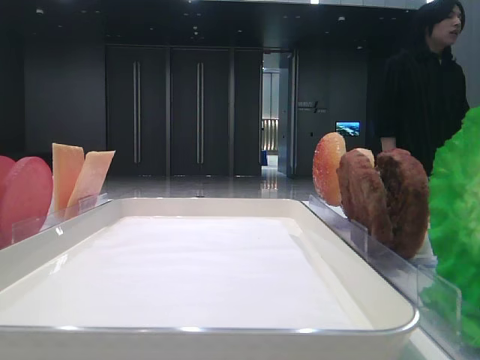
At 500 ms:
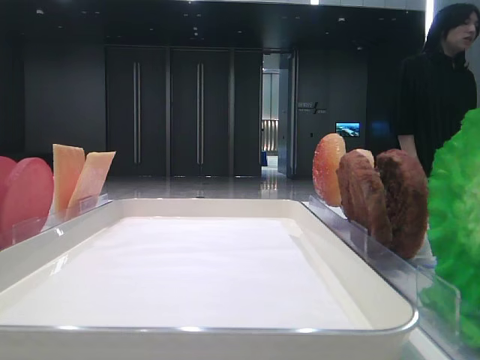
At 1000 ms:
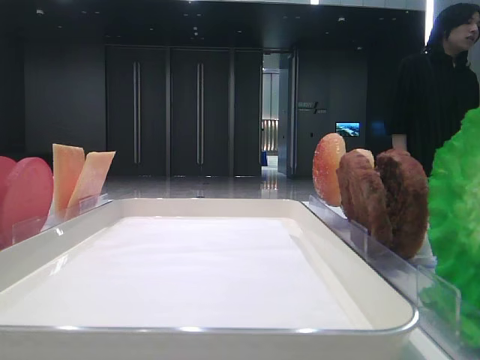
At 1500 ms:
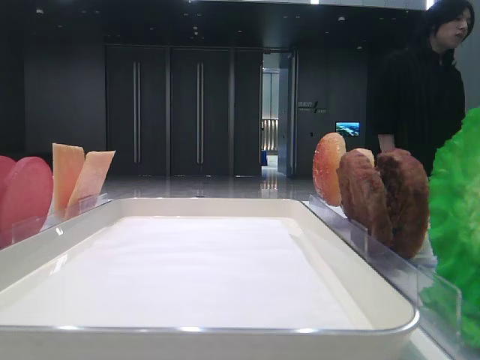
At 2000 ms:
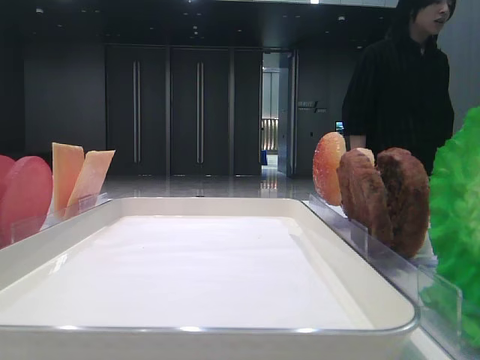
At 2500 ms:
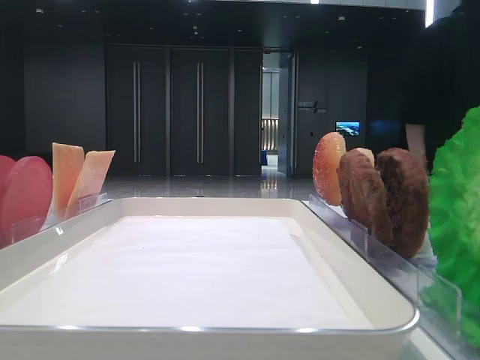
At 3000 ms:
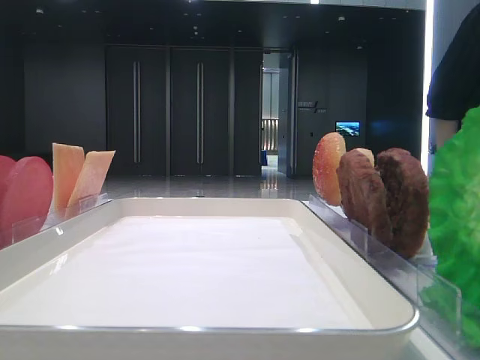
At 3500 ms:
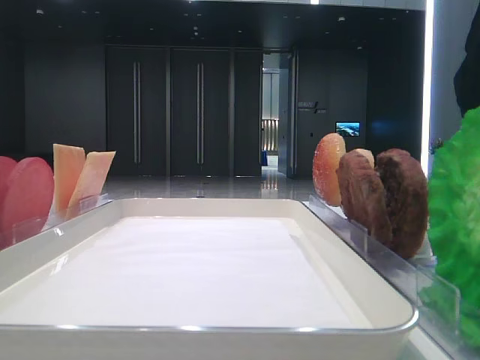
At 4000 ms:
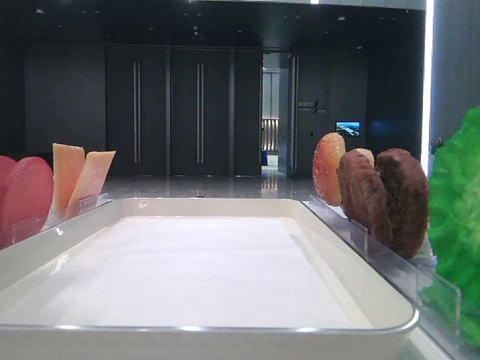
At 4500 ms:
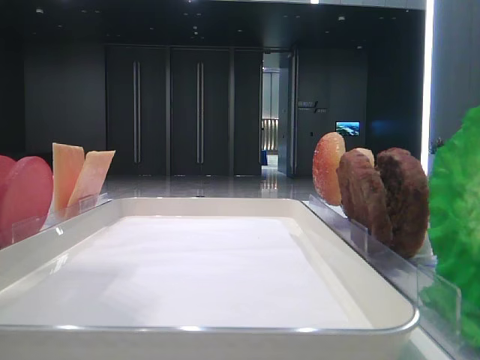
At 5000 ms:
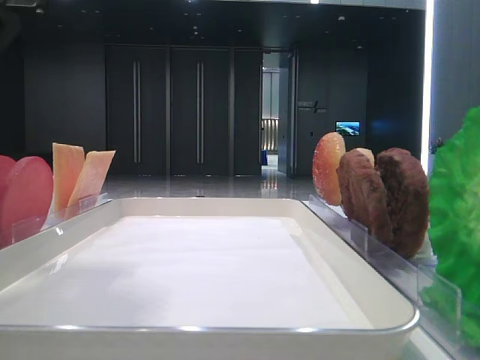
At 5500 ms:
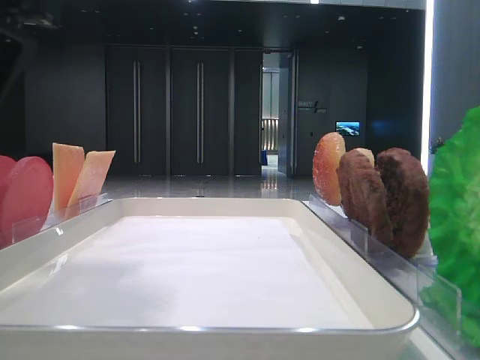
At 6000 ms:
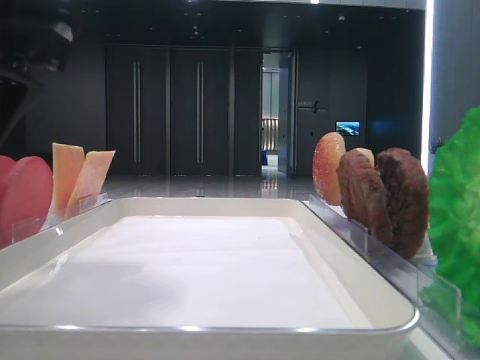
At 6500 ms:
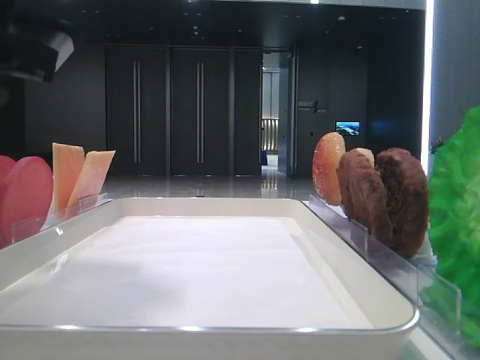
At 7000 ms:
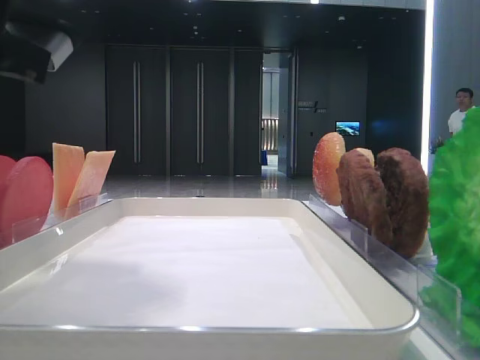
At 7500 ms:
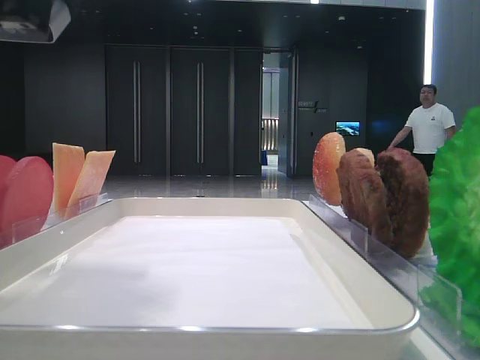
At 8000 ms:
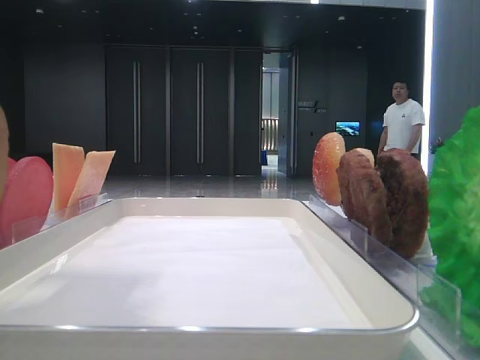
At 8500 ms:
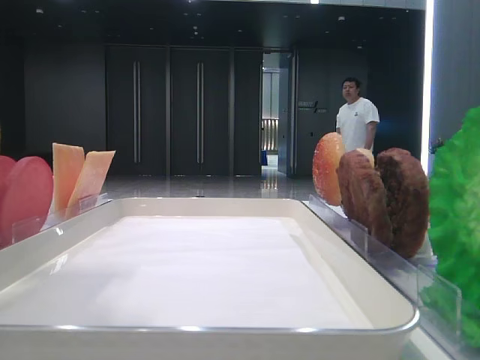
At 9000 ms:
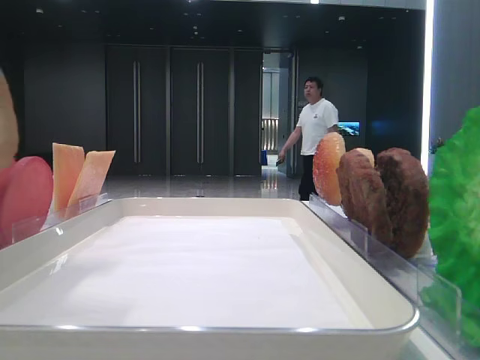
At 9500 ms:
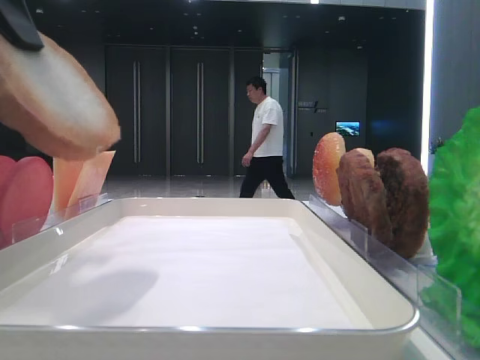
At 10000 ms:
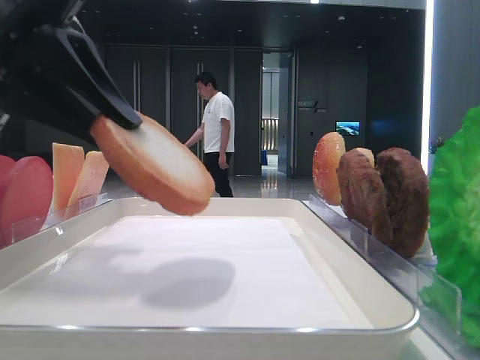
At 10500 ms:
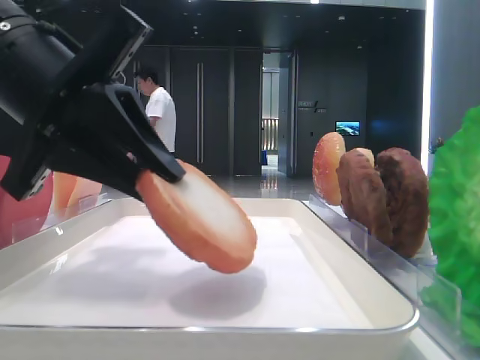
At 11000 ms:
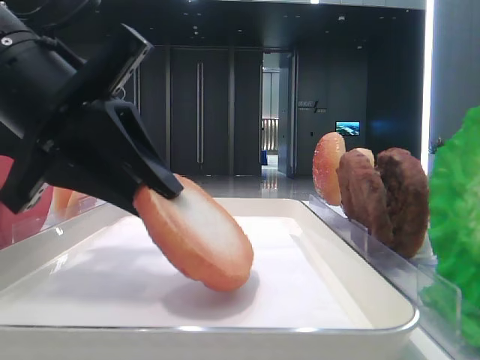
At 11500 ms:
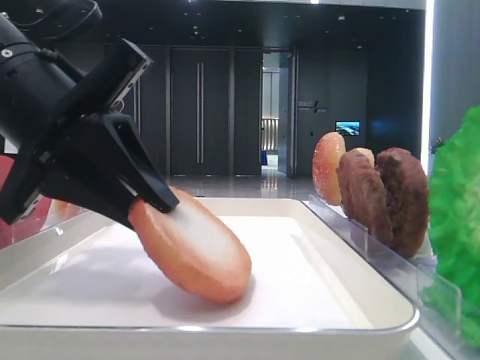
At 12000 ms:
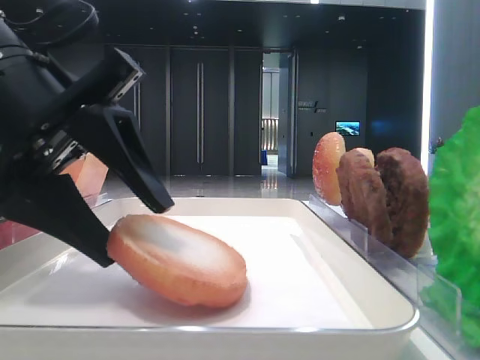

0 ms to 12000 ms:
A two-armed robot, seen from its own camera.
Step, 0 ms to 4000 ms: Pick up the bottom bread slice with the left hand.
2000 ms to 4000 ms: The left gripper goes some 10 cm to the right.
4000 ms to 6000 ms: The left gripper goes roughly 10 cm downward and to the right.
6000 ms to 8000 ms: The left gripper moves roughly 5 cm, and closes.
8000 ms to 10000 ms: The left gripper is displaced forward and downward by about 10 cm.
10000 ms to 12000 ms: The left gripper heads downward, covering approximately 5 cm, and opens.

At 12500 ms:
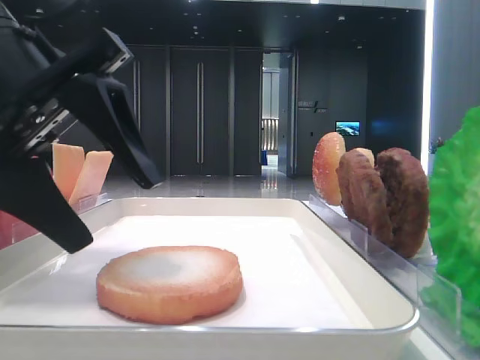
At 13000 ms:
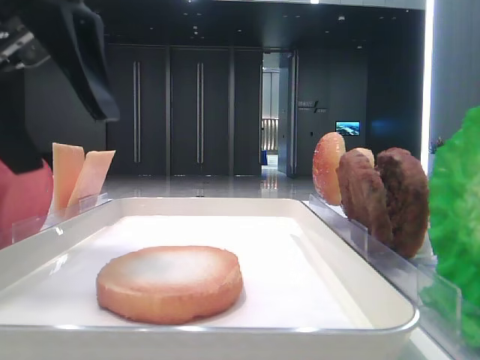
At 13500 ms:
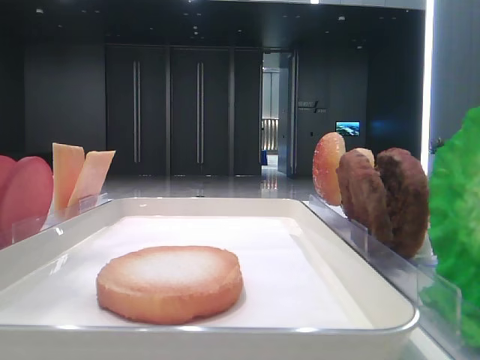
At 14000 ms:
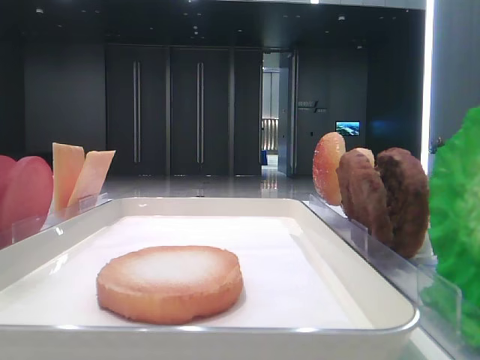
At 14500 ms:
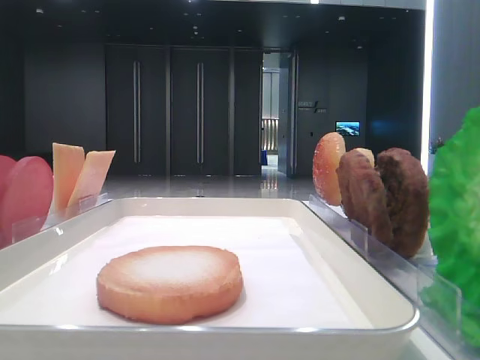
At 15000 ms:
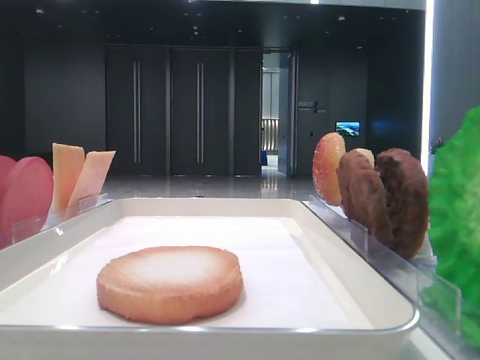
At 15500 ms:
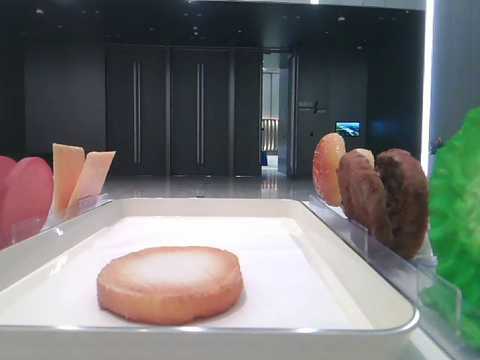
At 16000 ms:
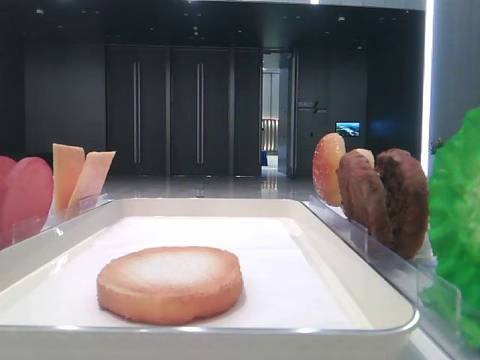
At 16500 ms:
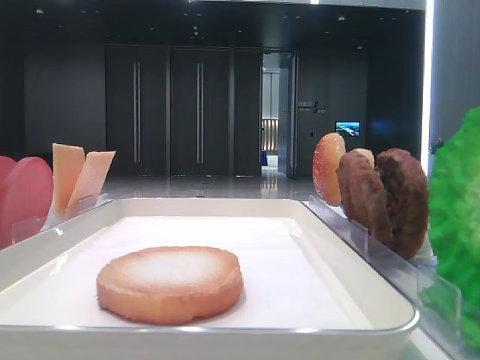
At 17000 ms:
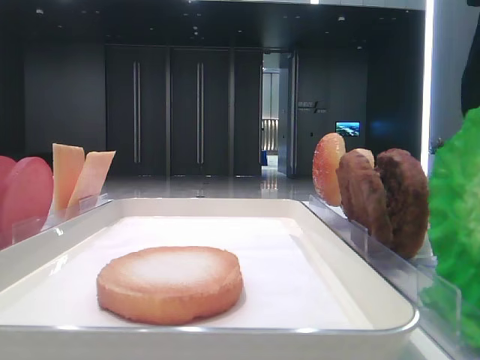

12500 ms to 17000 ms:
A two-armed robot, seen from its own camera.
12500 ms to 14500 ms: The left gripper moves to the left and upward, roughly 20 cm.

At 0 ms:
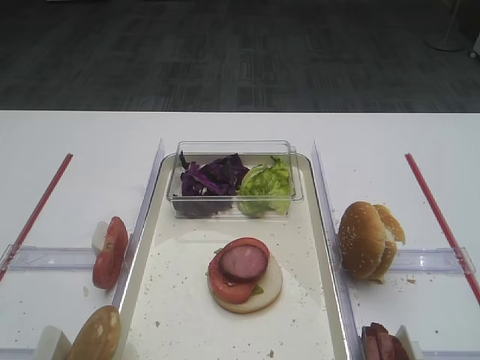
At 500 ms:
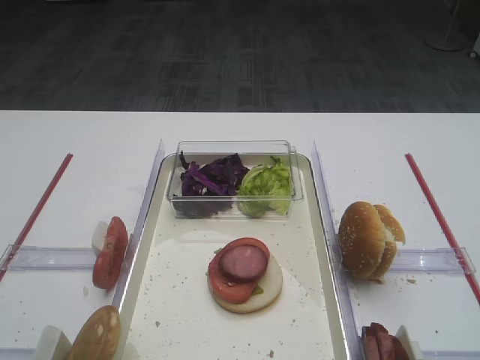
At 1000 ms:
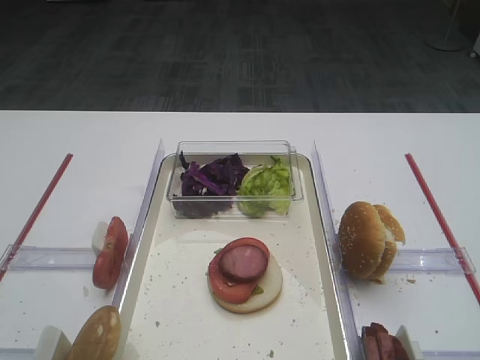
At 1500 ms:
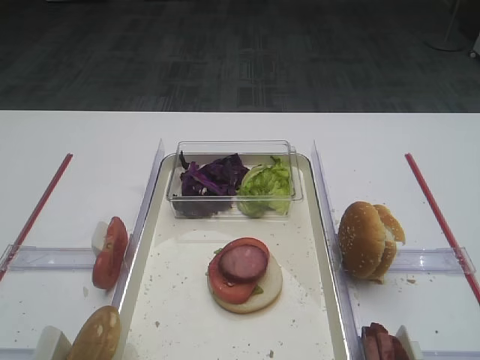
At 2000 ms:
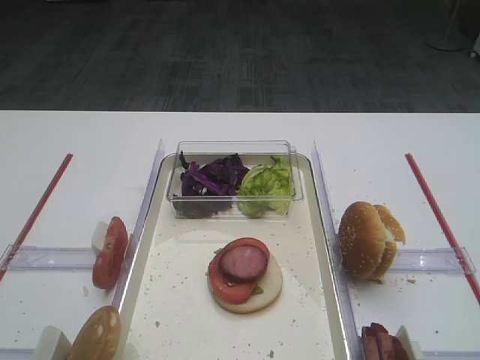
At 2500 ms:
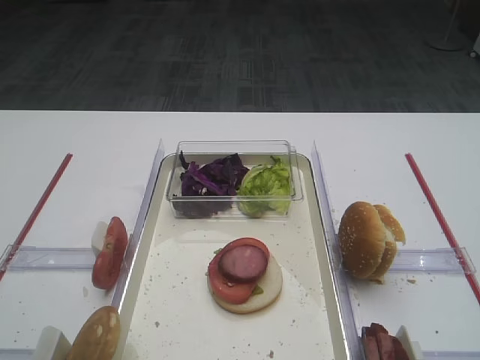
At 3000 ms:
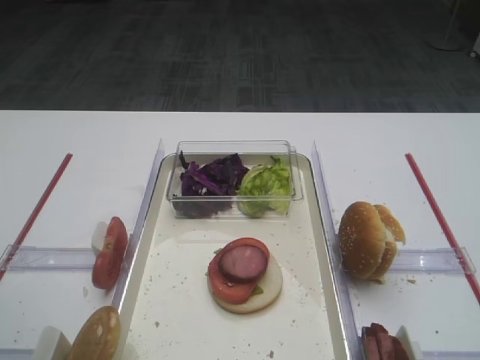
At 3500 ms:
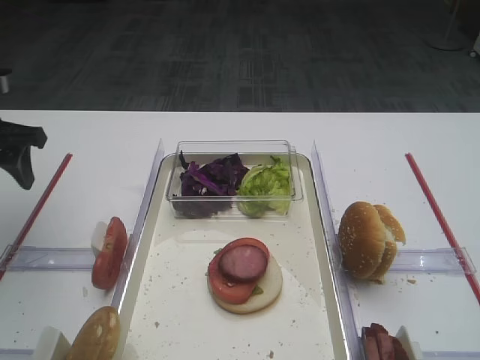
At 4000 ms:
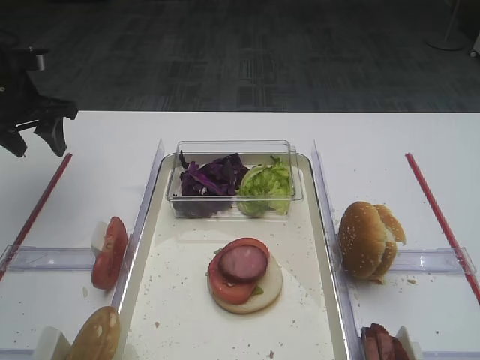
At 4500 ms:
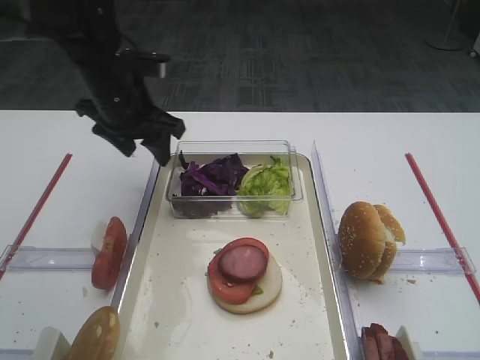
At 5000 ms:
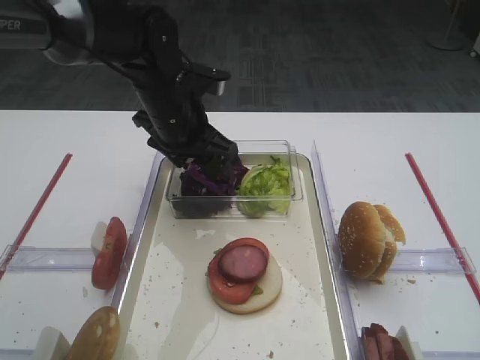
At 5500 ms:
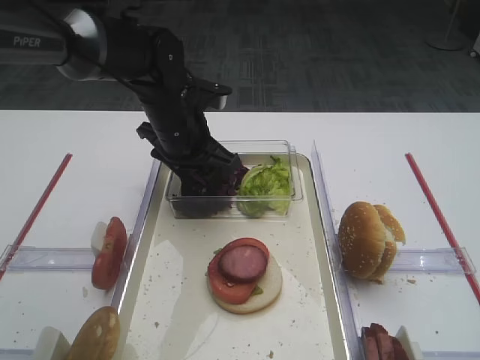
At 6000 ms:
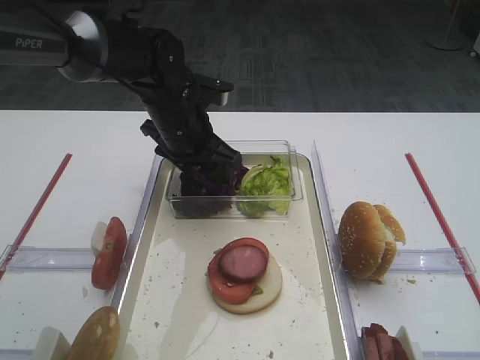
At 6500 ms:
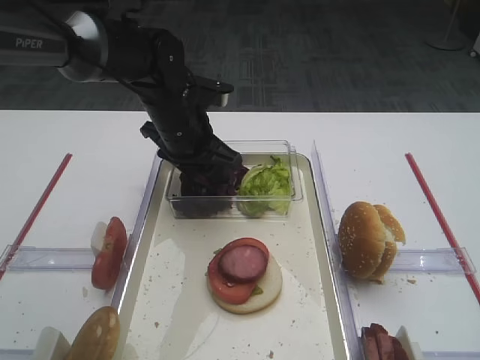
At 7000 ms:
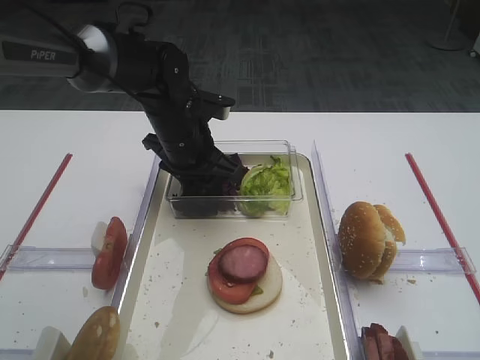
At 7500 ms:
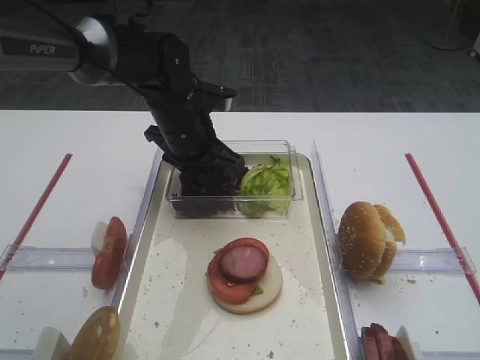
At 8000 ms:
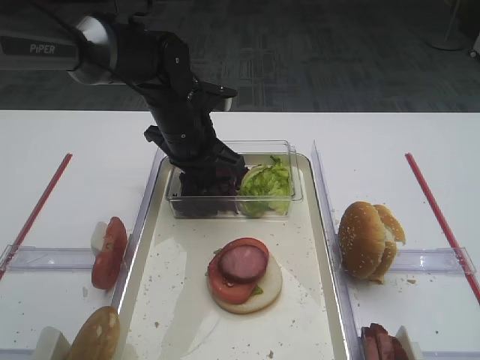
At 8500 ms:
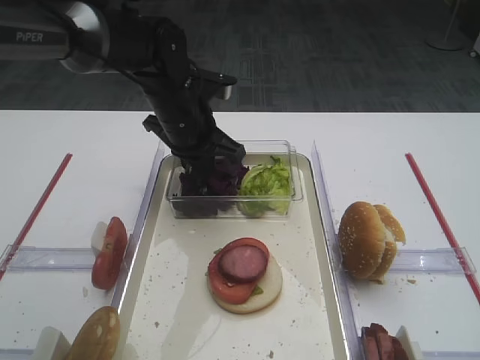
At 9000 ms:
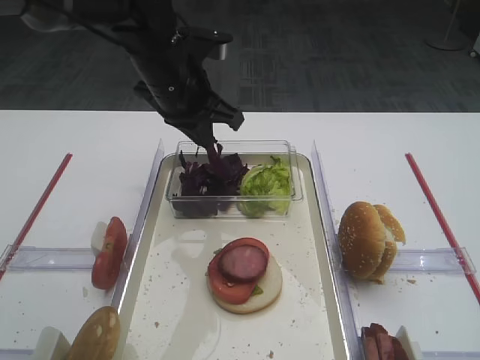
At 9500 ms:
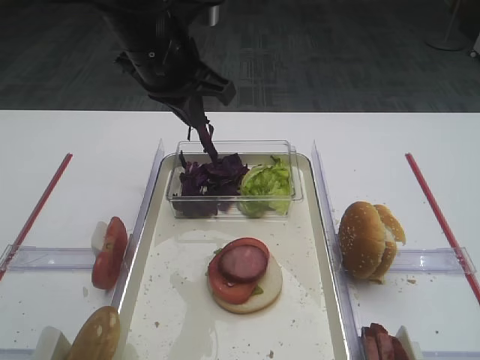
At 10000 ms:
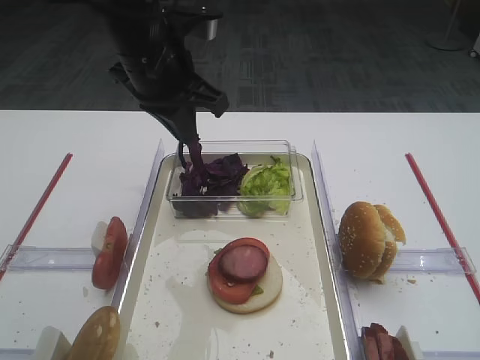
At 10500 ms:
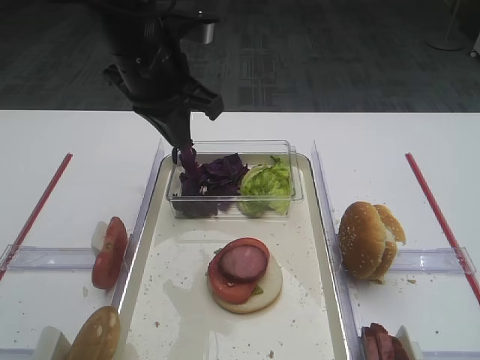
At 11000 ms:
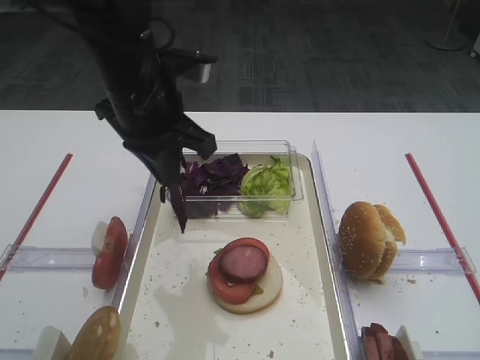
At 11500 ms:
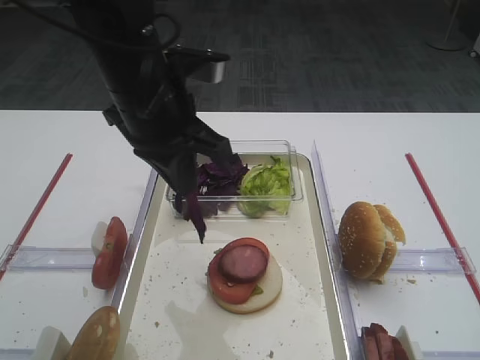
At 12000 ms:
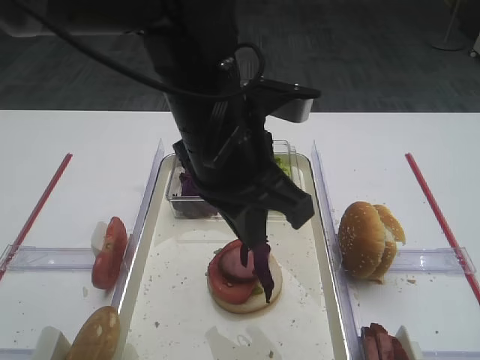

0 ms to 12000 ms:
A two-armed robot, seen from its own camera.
Step, 0 ms to 9500 ms: Pick up the purple cabbage with the left gripper.
2000 ms to 4000 ms: The left gripper heads forward, covering approximately 40 cm.
4000 ms to 6000 ms: The left gripper moves to the right, approximately 25 cm.
6000 ms to 8000 ms: The left gripper closes its fingers.
8000 ms to 10000 ms: The left gripper moves upward and backward, approximately 15 cm.
10000 ms to 12000 ms: The left gripper shifts about 15 cm backward and to the right.
